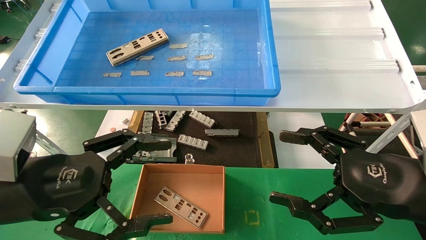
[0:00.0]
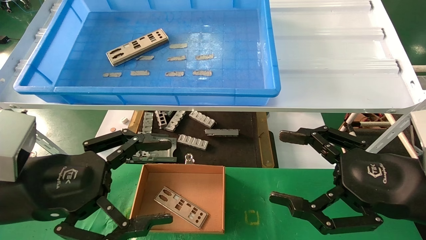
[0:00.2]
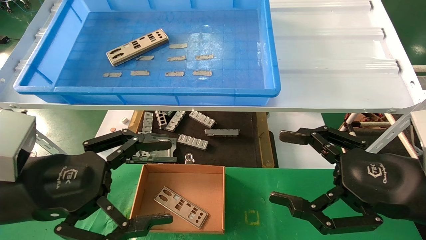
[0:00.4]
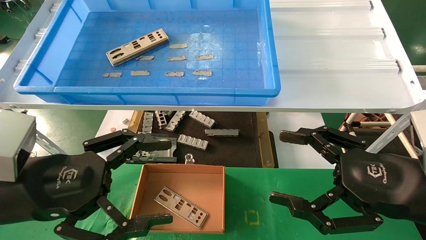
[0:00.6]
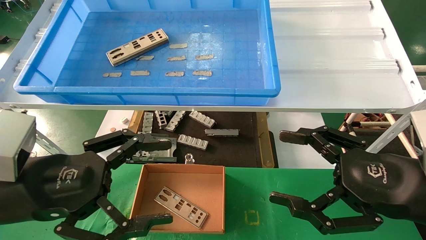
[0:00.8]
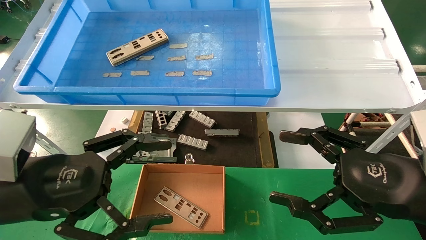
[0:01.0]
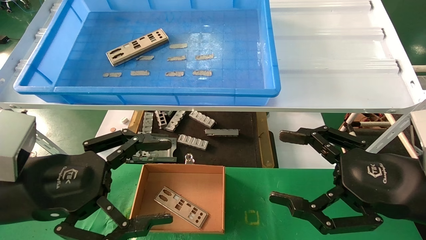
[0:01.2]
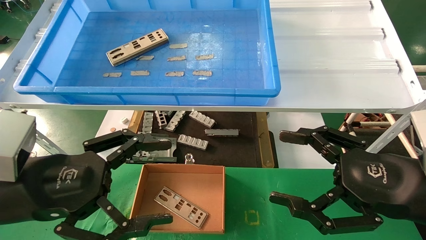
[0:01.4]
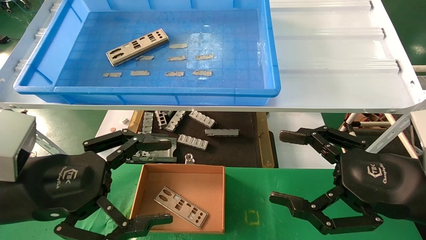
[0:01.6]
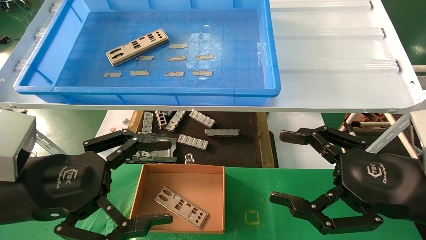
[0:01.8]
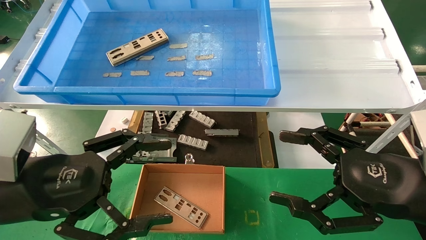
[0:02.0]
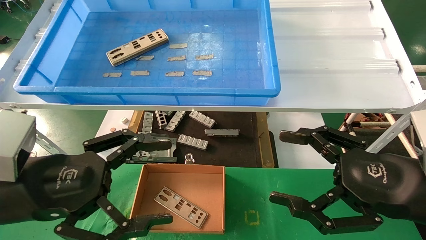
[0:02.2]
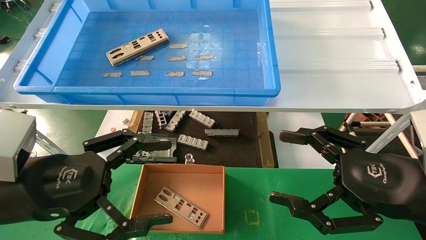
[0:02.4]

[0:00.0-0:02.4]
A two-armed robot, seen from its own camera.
Task of the whole recording: pick up the parts on the tray and put them in the cardboard box.
0:00.0 to 0:02.4: Both grippers stay put.
